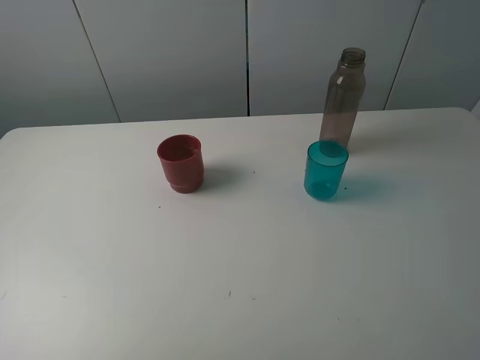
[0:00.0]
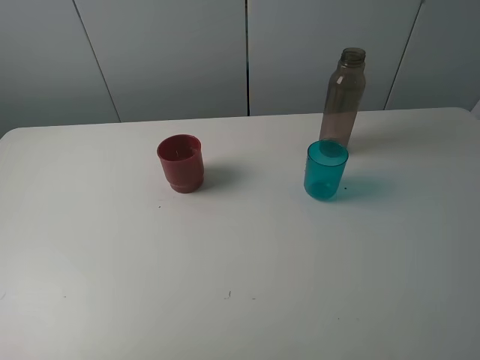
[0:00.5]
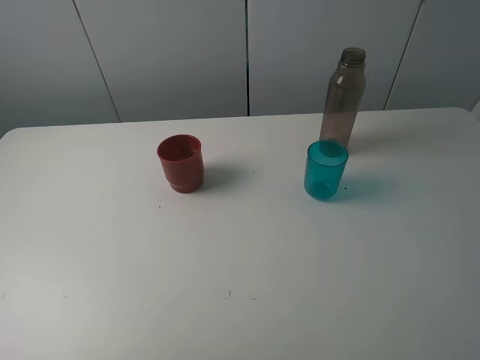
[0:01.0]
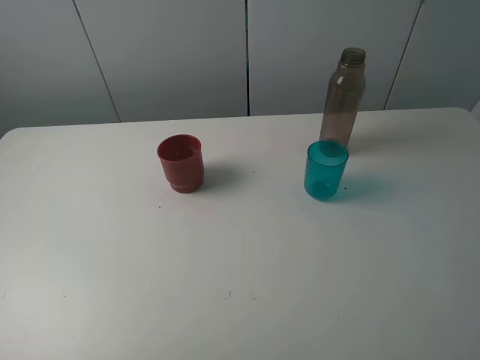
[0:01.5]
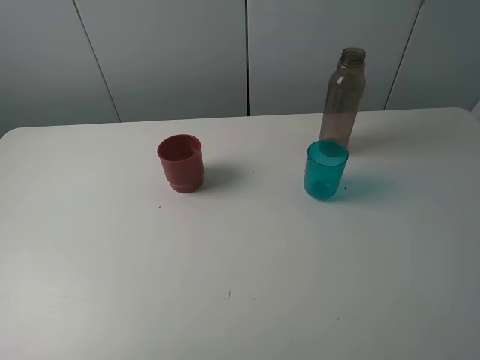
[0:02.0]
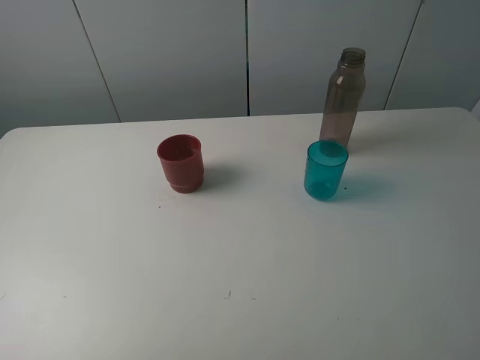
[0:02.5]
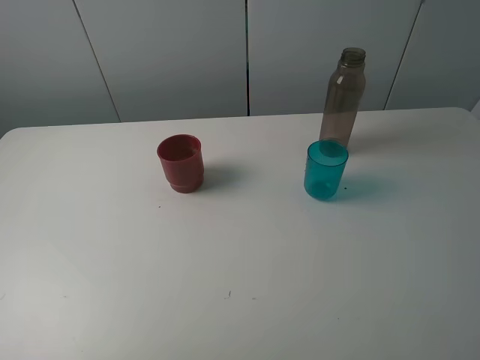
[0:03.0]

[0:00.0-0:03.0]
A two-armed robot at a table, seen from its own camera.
Task of the whole recording: pick up the bottle and pour water into the cup, then pick up the cup containing water and pour it into another cup.
0:01.5 to 0:03.0: Both grippers stay put.

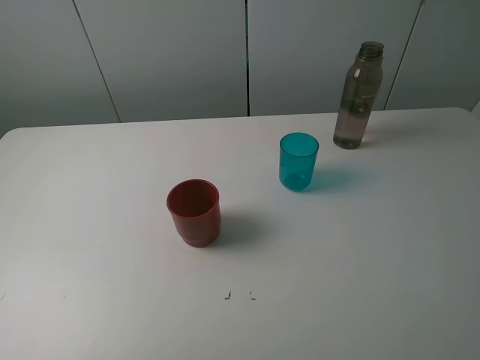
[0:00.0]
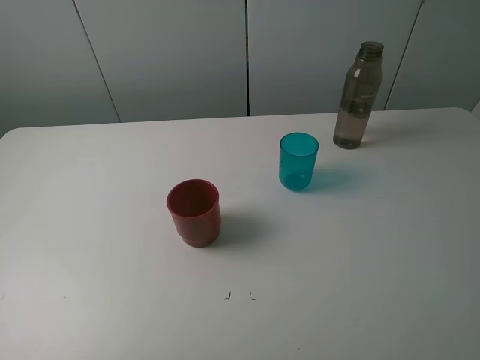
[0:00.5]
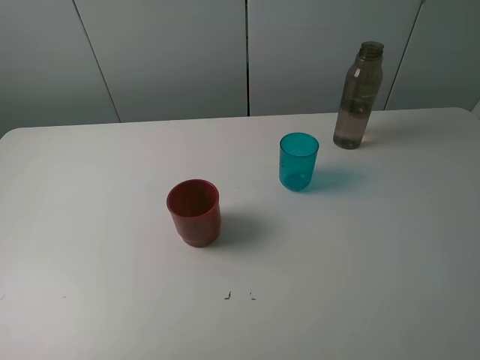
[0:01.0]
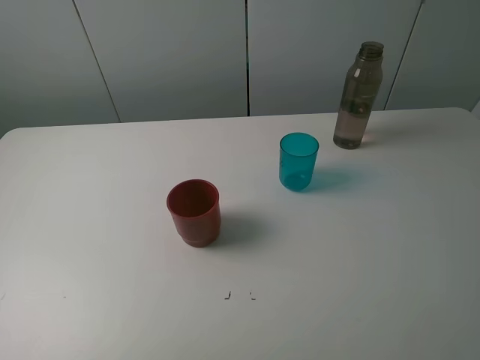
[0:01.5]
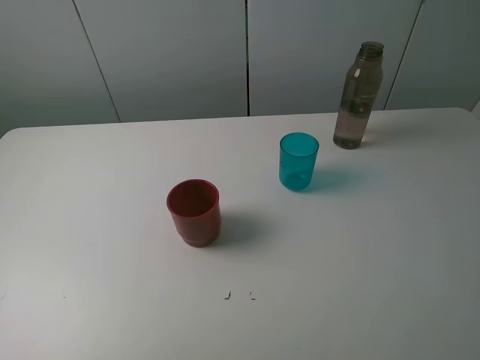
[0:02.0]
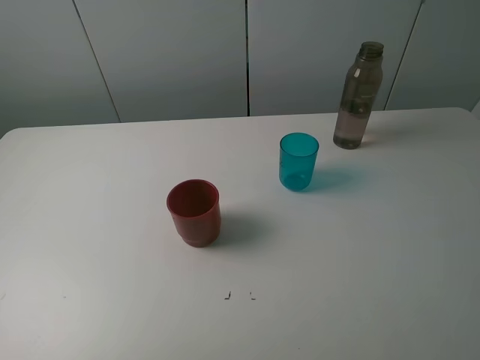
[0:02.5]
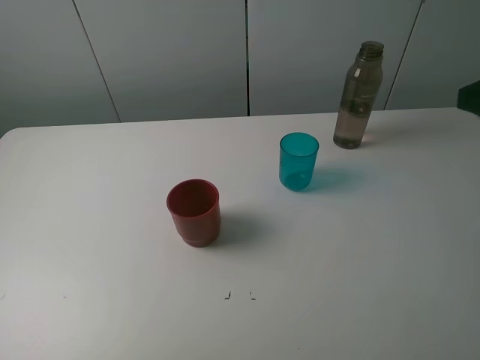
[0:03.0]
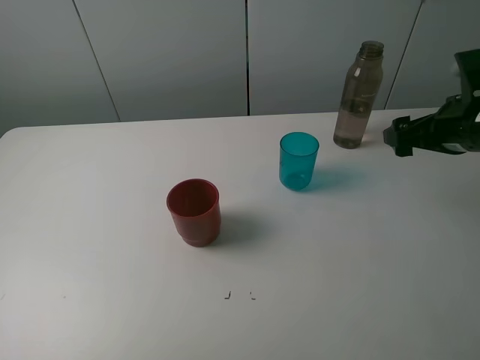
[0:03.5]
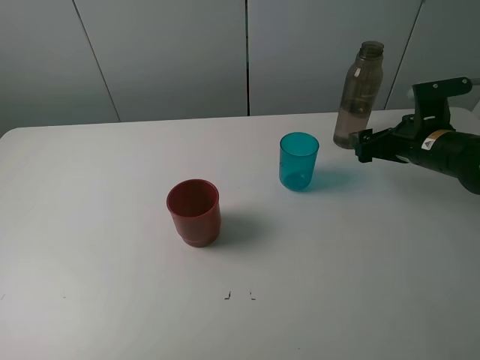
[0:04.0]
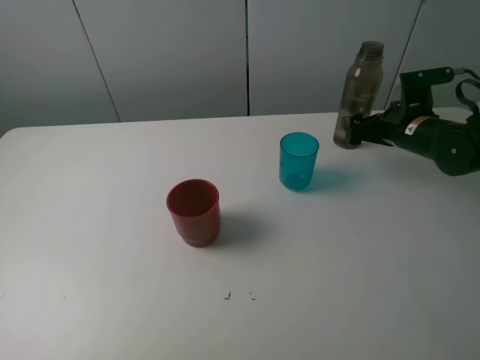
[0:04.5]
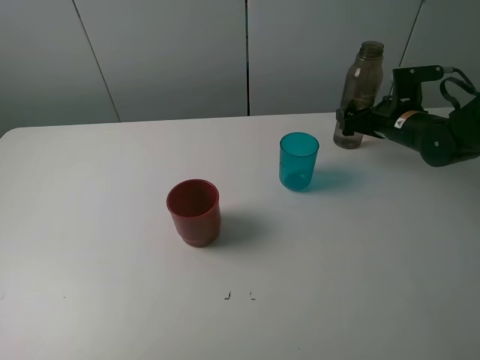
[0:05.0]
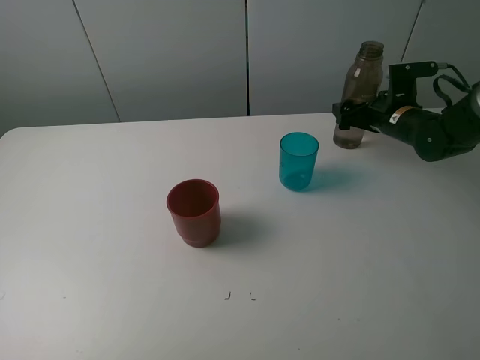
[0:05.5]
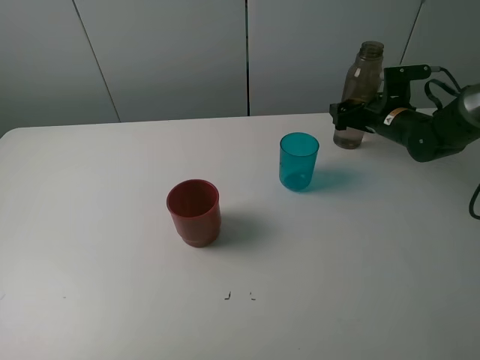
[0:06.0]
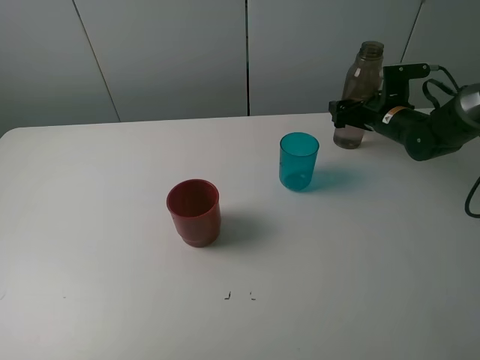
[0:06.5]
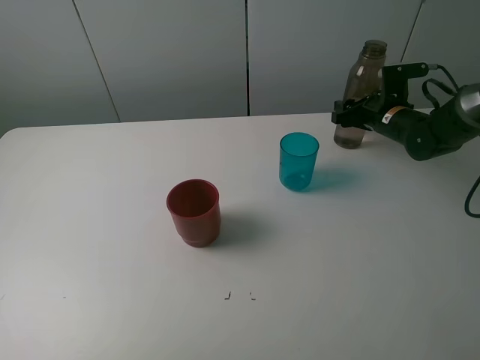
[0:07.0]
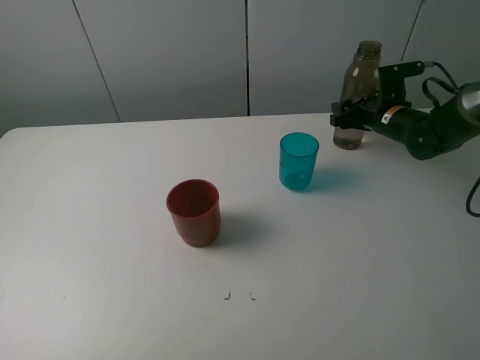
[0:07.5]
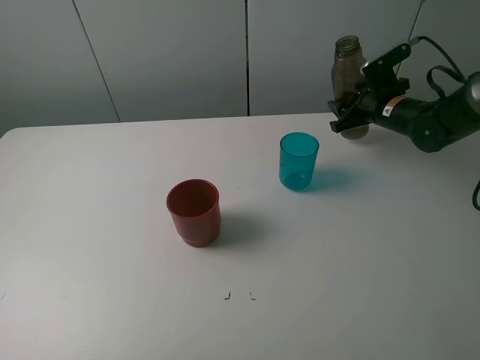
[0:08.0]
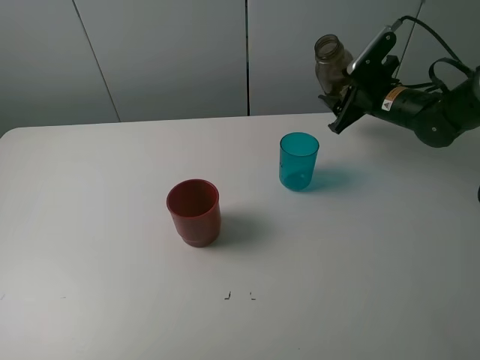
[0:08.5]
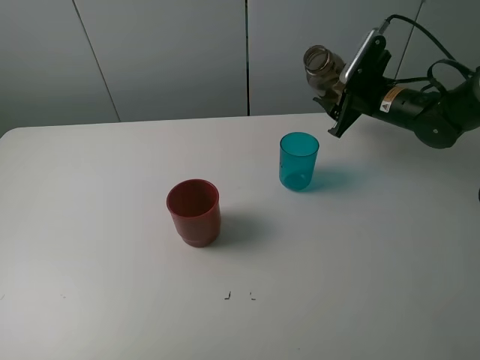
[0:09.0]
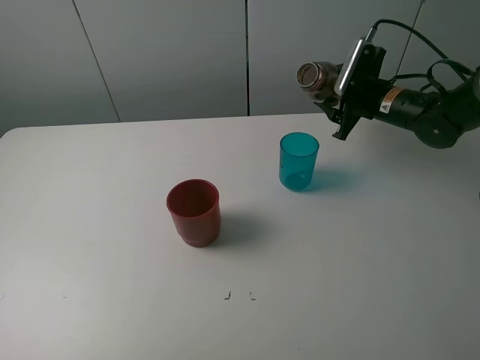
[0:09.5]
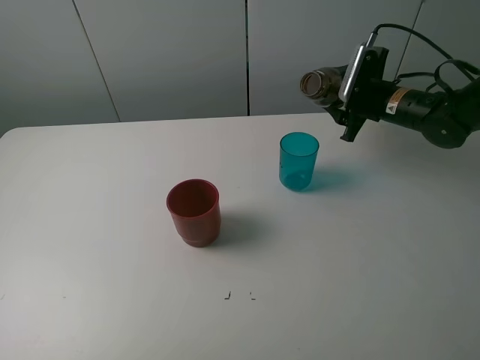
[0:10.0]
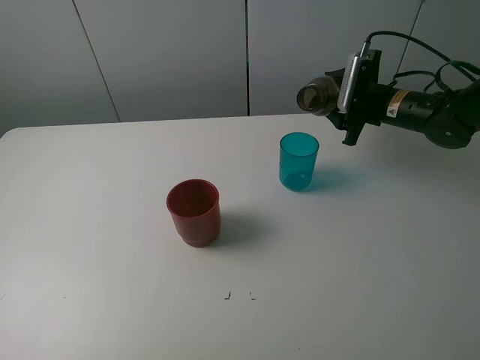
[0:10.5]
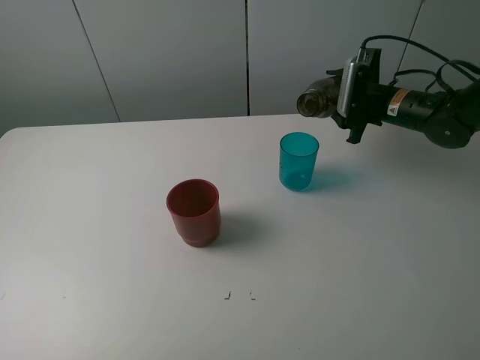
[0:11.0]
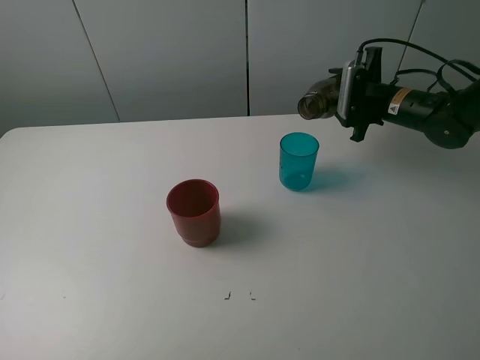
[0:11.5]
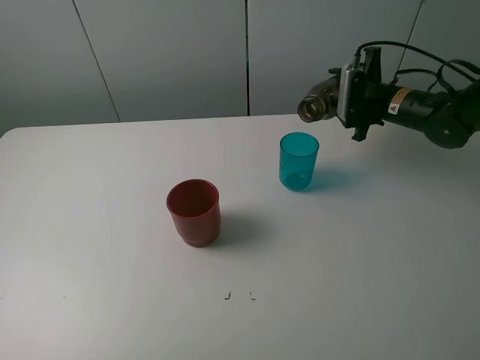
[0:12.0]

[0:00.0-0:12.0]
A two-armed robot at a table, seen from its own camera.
Task of the whole recording: pick up the bottle and pour water into the cup, then pick up the cup containing water and pour it into another cup.
Step, 0:00.0 to 0:06.5: Grasp the brown bottle with the right gripper.
0:00.0 to 0:02.0: Both grippers stay put.
0:02.0 to 0:04.0: The right gripper shifts approximately 35 cm forward and downward.
0:04.0 to 0:06.0: The right gripper shifts roughly 10 cm forward.
0:06.0 to 0:08.0: The right gripper closes.

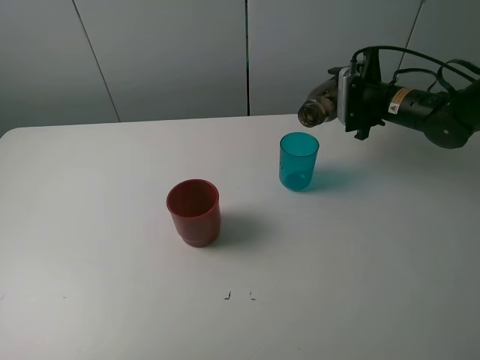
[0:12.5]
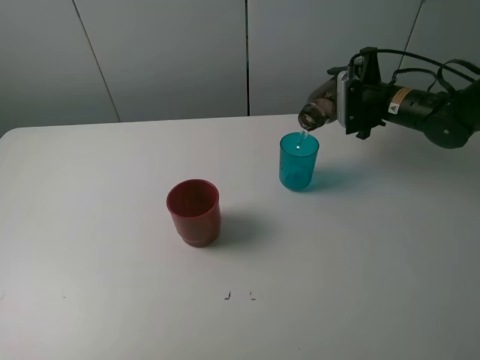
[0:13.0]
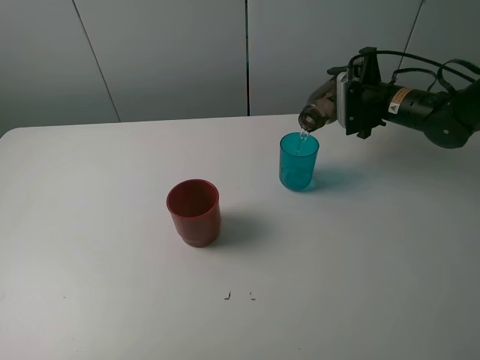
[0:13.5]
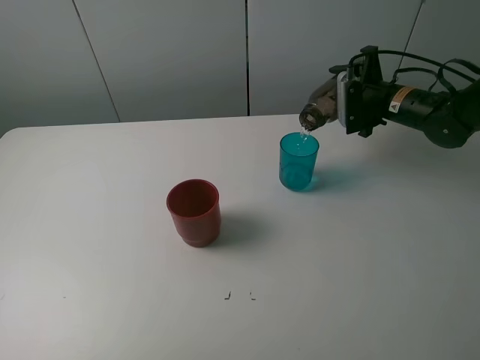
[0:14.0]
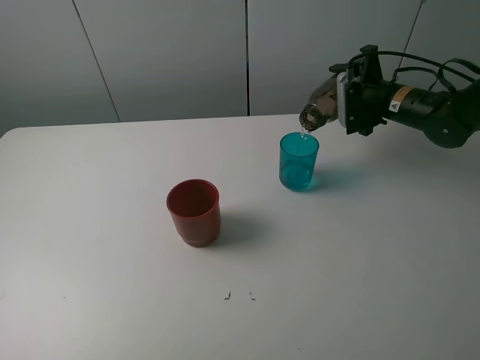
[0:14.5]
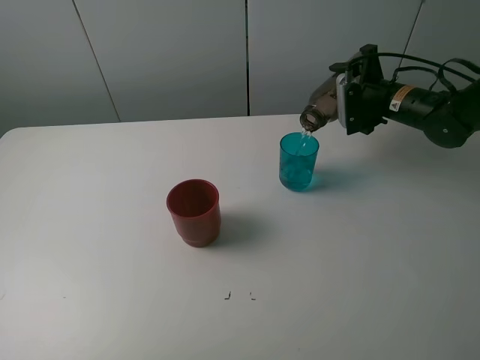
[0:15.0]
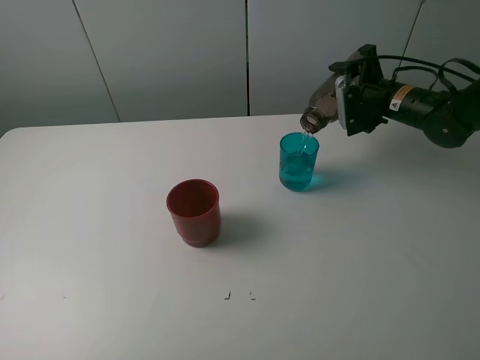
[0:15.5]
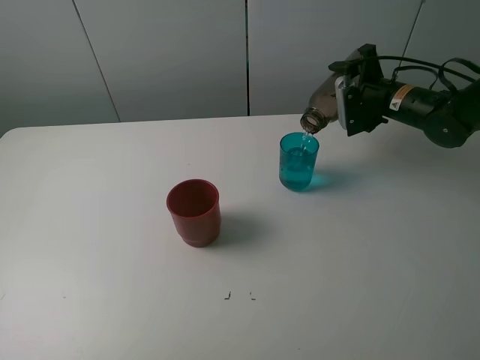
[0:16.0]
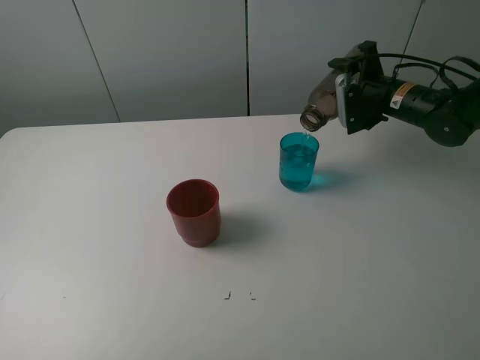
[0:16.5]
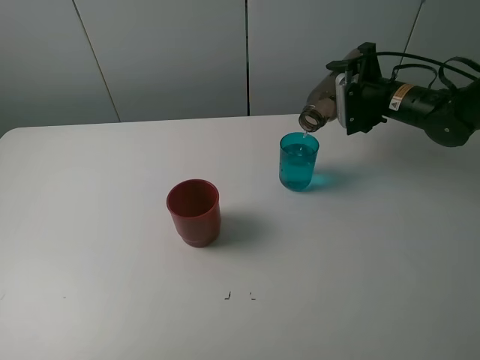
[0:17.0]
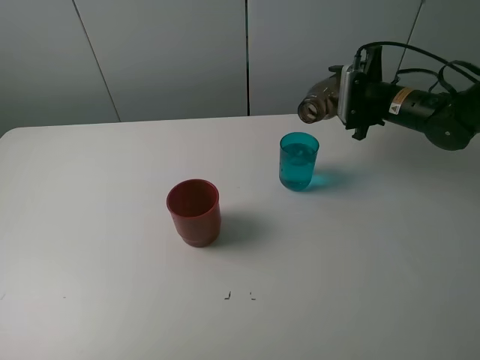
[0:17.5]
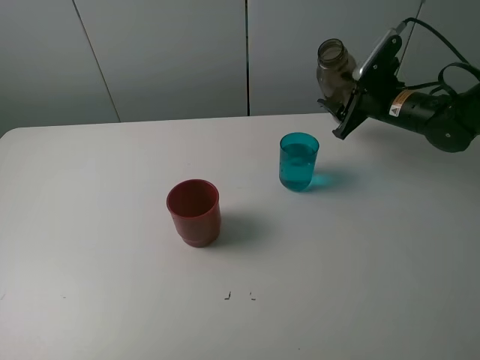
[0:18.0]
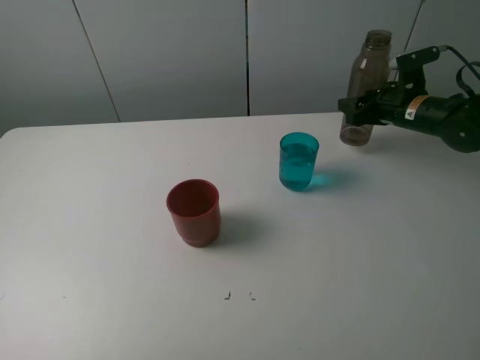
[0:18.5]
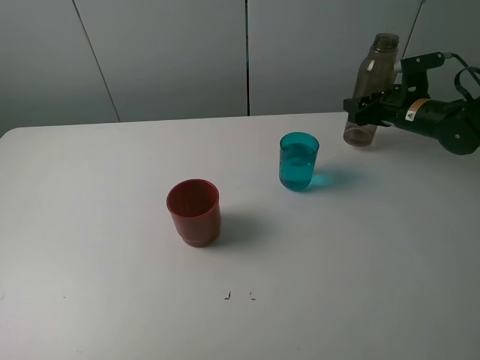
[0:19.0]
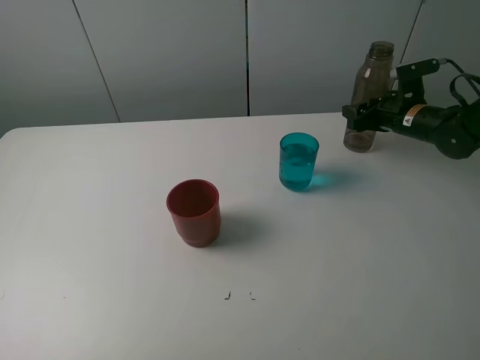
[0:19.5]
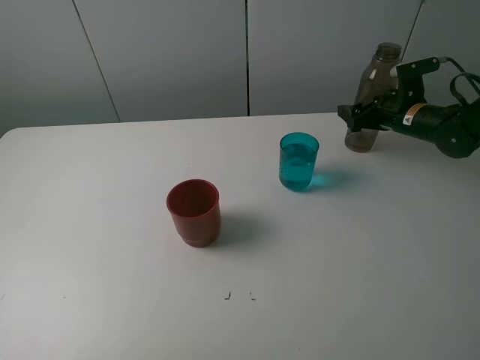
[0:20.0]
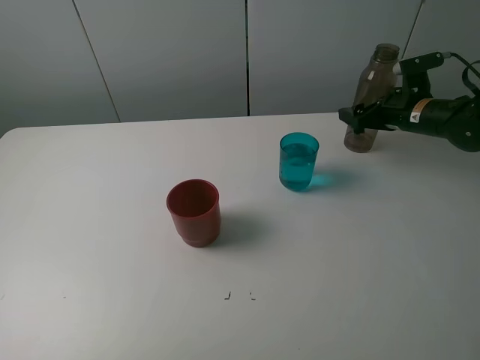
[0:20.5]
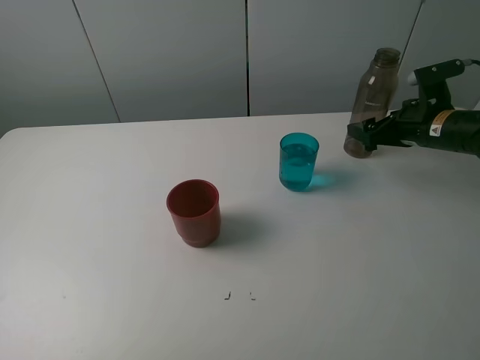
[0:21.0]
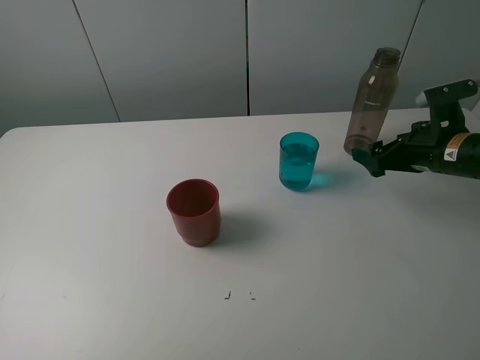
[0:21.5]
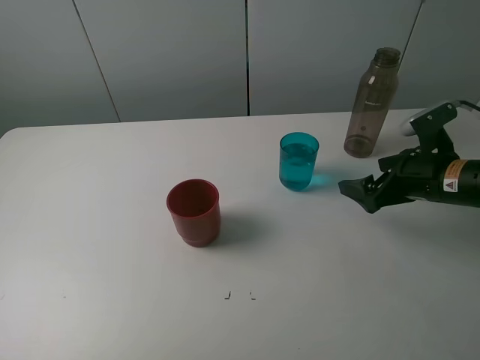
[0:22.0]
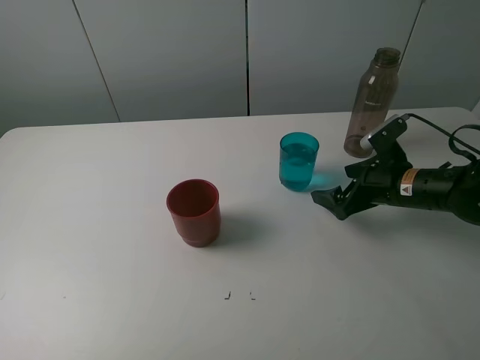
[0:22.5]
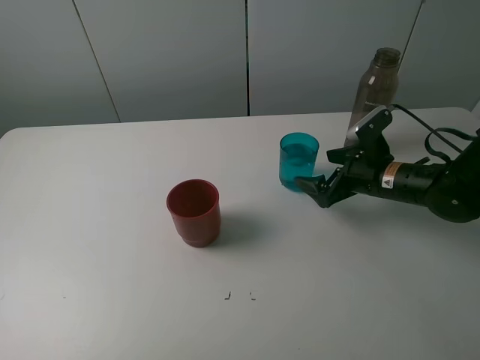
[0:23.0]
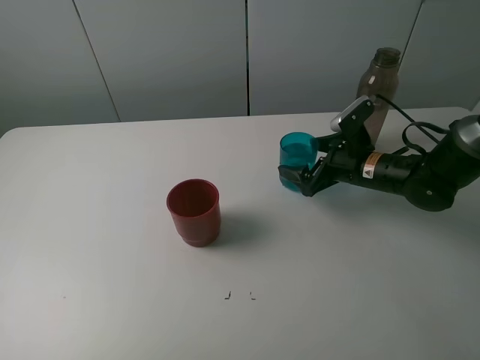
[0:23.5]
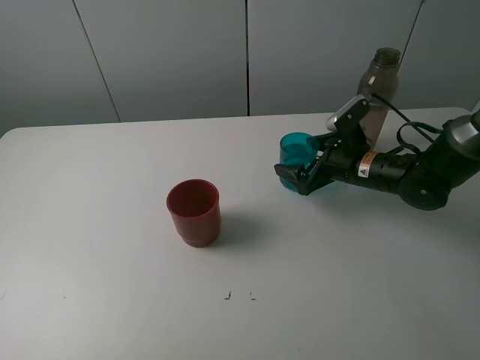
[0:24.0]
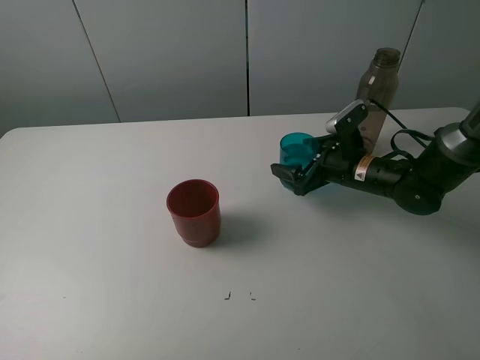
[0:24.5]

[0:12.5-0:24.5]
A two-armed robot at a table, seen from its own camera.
Task of the whole recording: pick up the bottle and pour water into the cup, then pick up the cup containing water and pour it into another cup.
Step, 0:12.5 to 0:17.0: Pour water from brown bottle to blue cup with the right gripper.
Step, 0:17.5 to 0:20.0: Place the brown bottle with the right gripper.
0:12.5 to 0:16.5: There are only small adjustments of the grippers.
0:18.5 to 0:20.5: The right gripper opens its fingers.
0:20.5 to 0:22.5: The right gripper moves backward and to the left, approximately 15 cm.
0:22.5 to 0:24.5: The right gripper moves to the left, about 5 cm.
